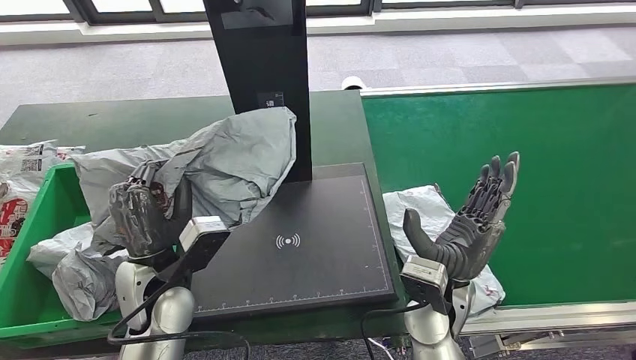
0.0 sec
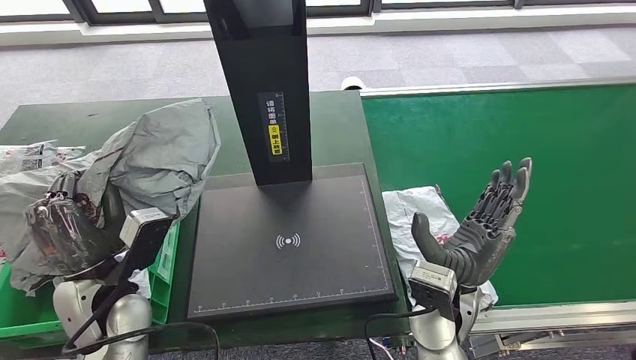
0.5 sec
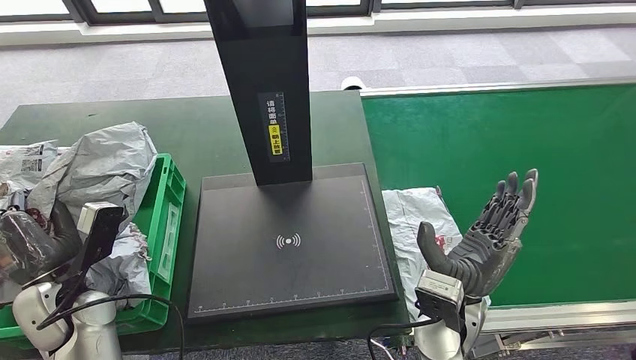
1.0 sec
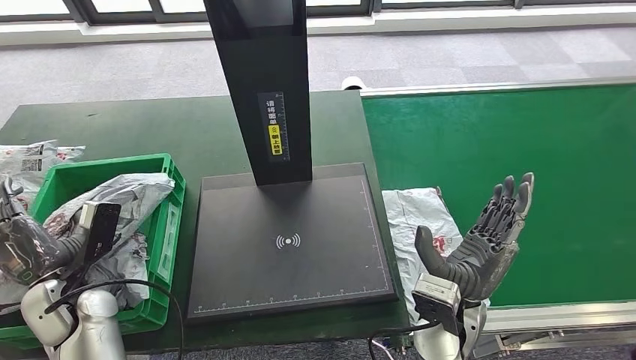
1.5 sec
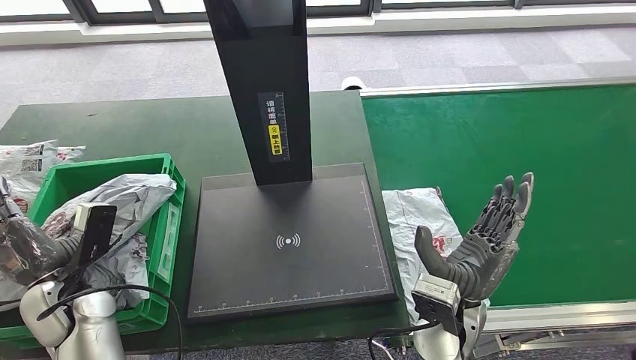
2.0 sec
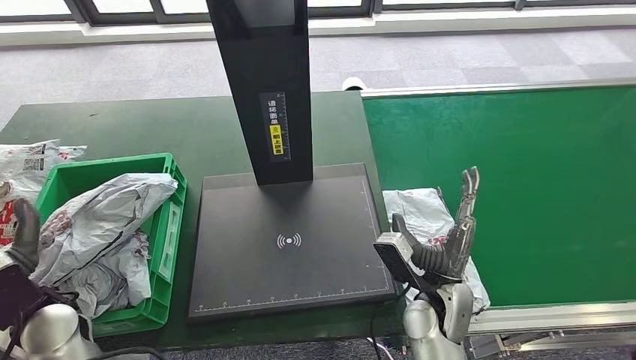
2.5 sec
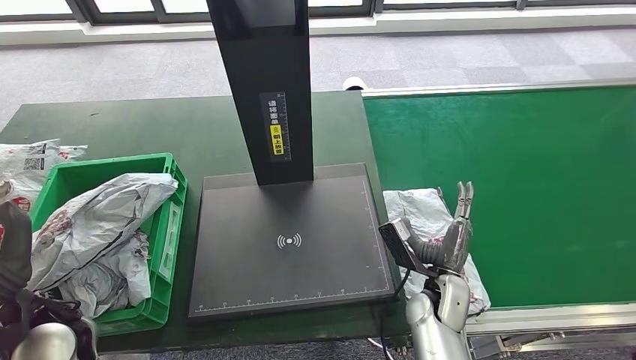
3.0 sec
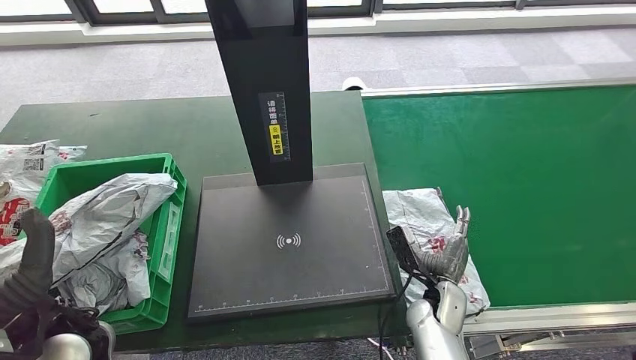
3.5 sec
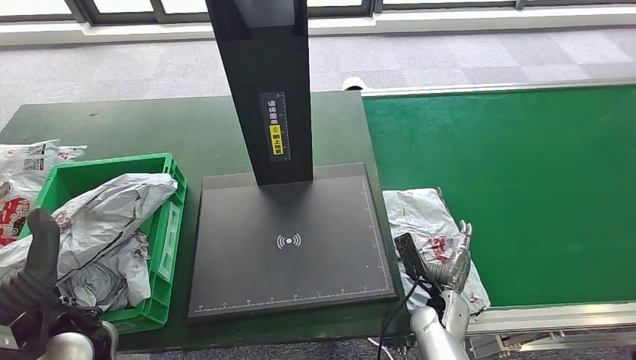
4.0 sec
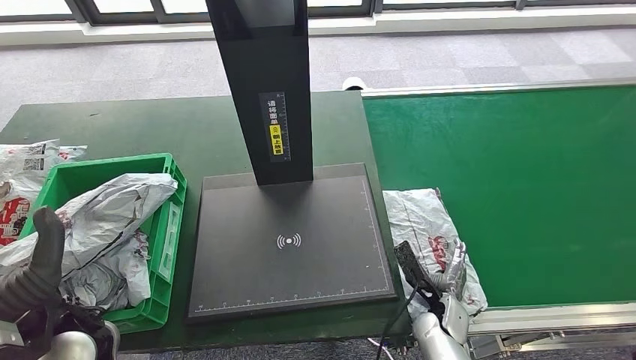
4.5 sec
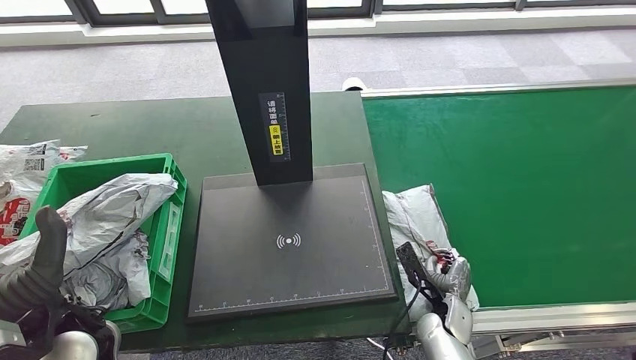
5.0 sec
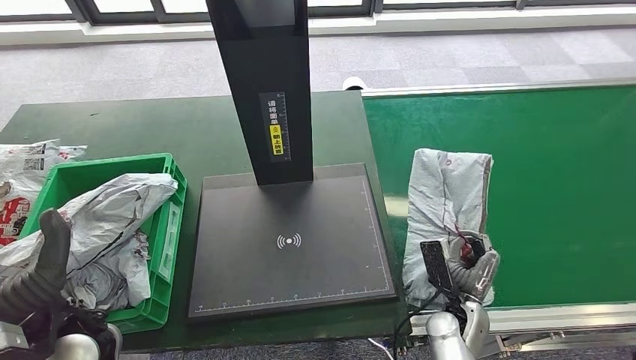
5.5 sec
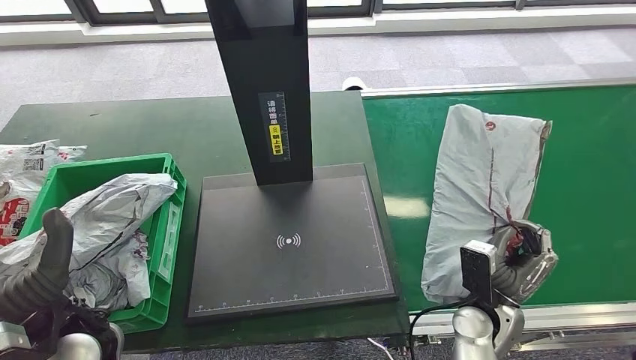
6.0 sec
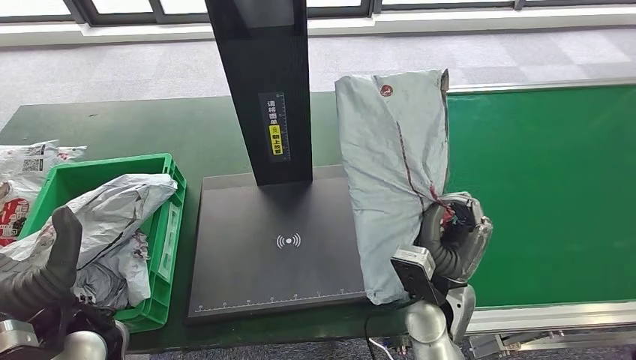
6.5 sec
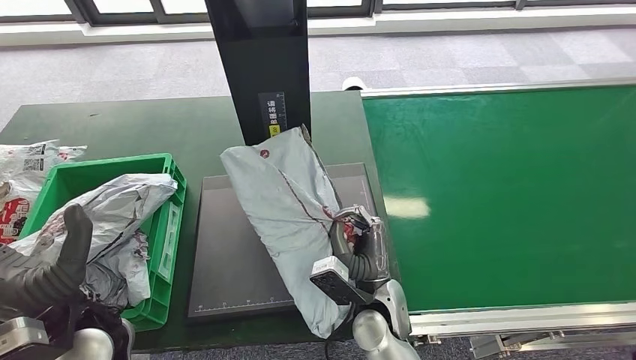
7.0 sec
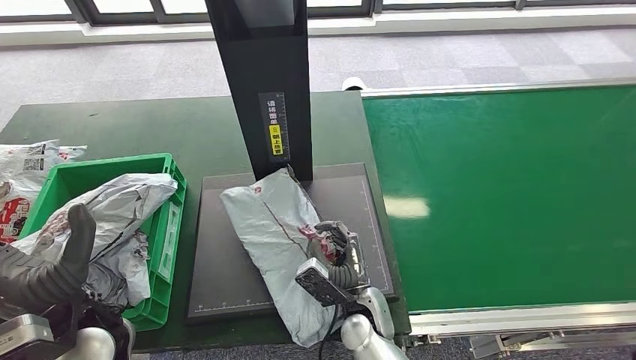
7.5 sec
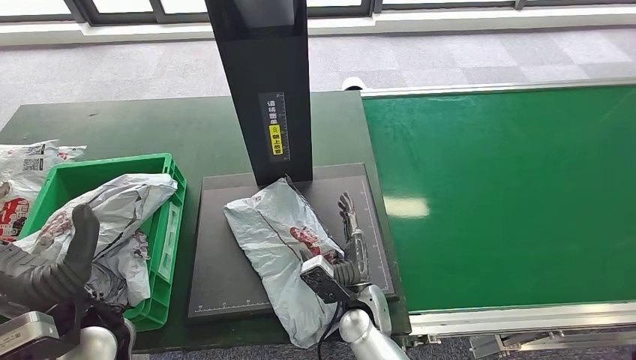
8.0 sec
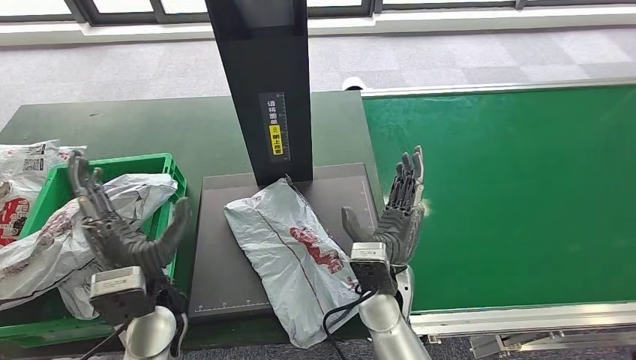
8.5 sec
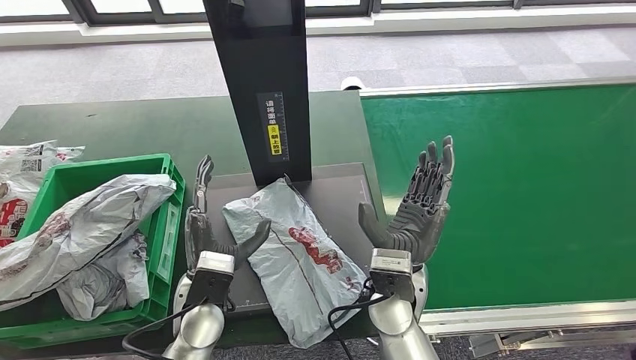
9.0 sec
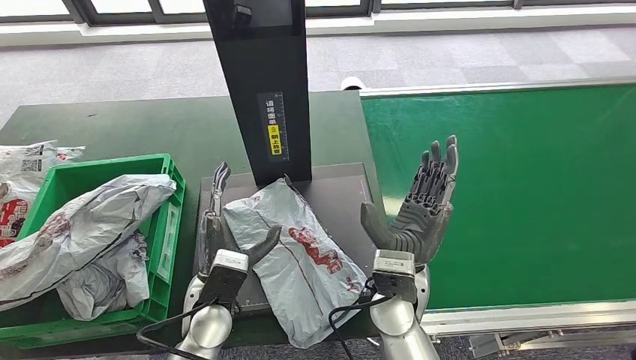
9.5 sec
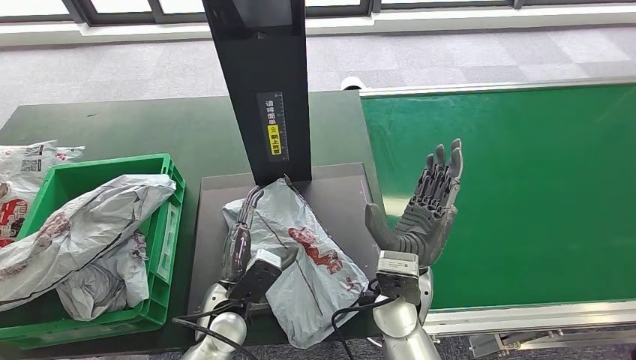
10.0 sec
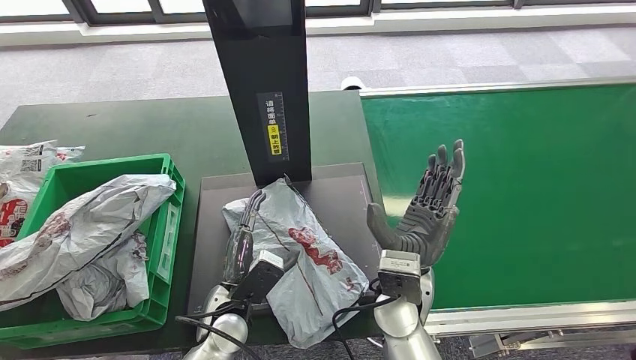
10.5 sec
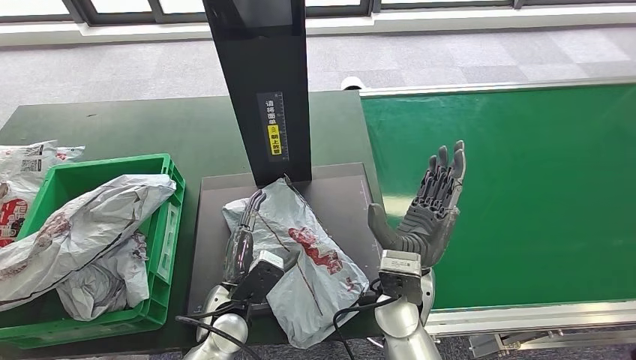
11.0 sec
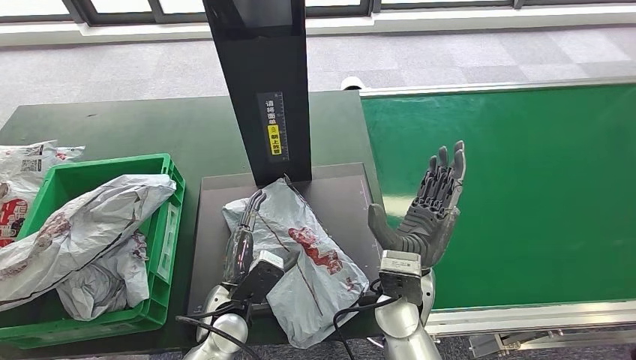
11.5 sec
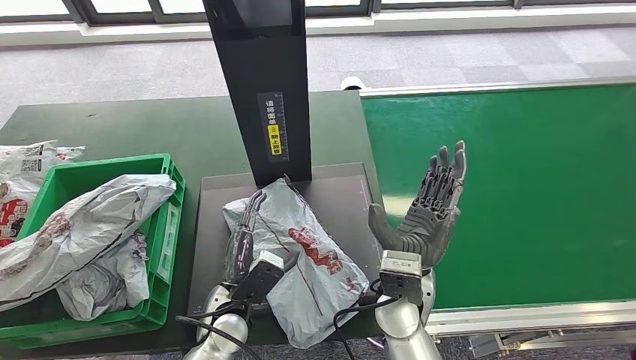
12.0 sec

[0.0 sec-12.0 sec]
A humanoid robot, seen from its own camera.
Step, 0.5 sec to 3.0 sec: Place the parcel into the delivery box.
Step, 3.5 sec to 6.0 sec: Pick up the parcel from the conveyor belt.
Step, 7.0 sec to 9.0 sec: Place the parcel onto the inbound machine.
2.0 sec to 4.0 sec: The left hand travels upward, to the right and backward by about 10 cm. Meanwhile the right hand shifts some 15 cm downward.
4.0 sec to 6.0 sec: The right hand goes roughly 10 cm upward and to the right.
8.0 sec to 10.0 sec: The right hand is displaced upward and to the right by roughly 15 cm, while the left hand goes some 20 cm to the right and downward.
10.0 sec to 12.0 sec: The two hands keep their place.

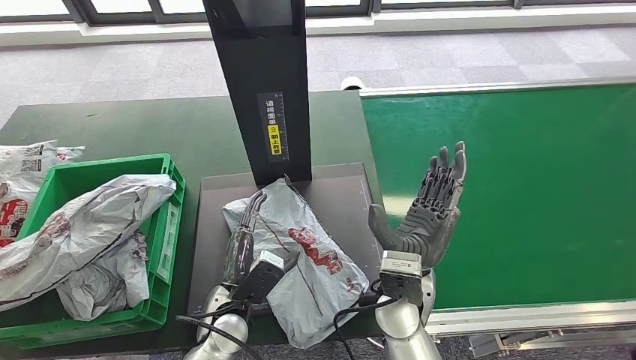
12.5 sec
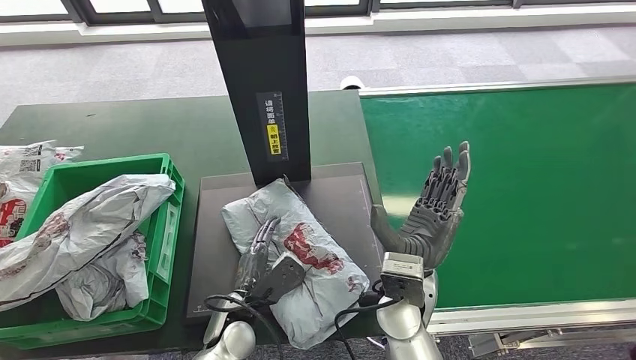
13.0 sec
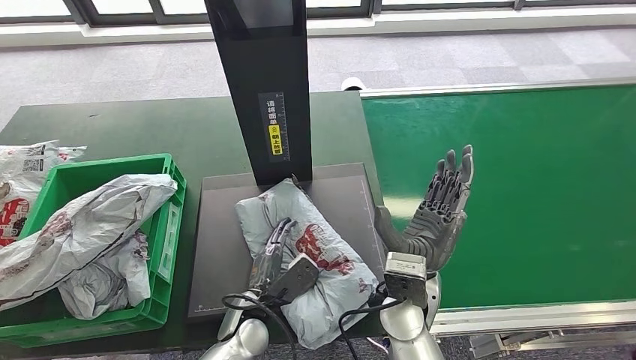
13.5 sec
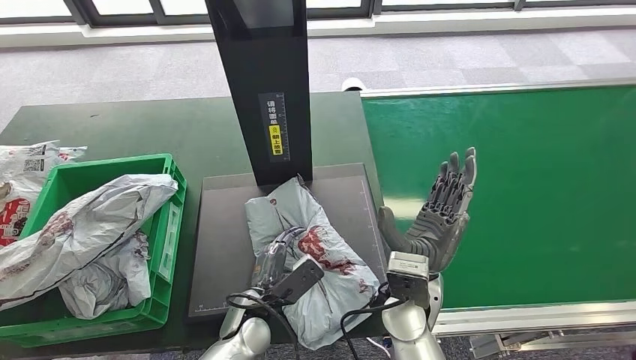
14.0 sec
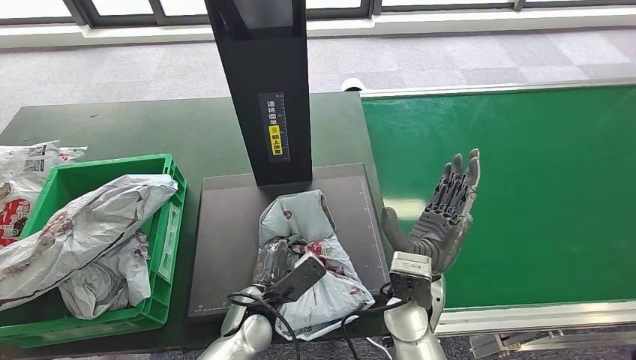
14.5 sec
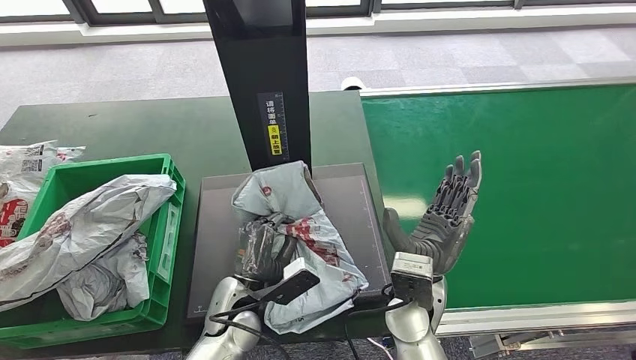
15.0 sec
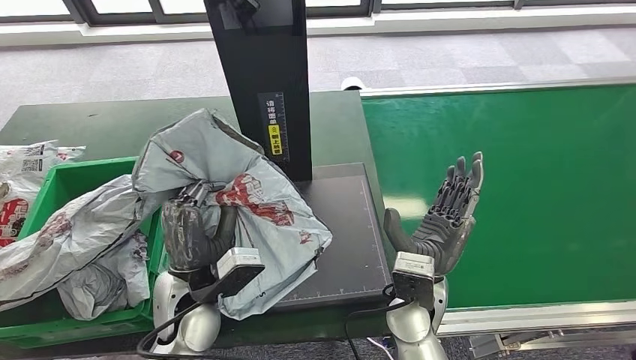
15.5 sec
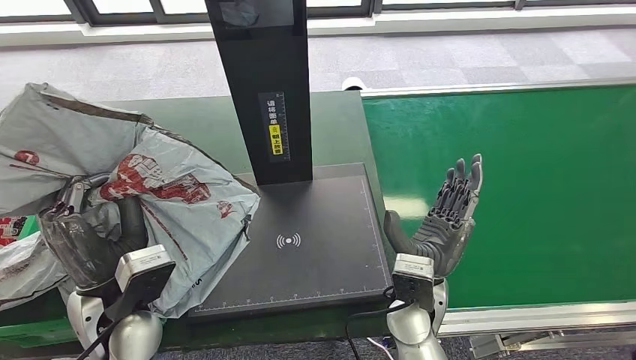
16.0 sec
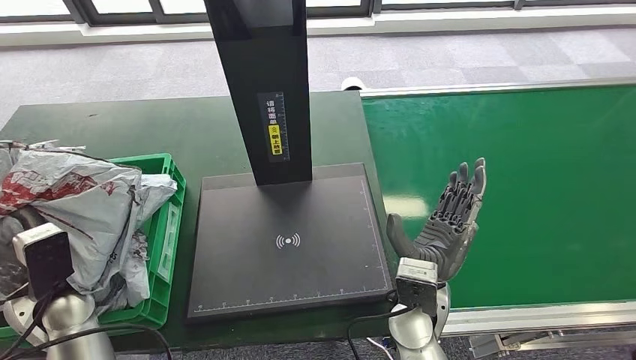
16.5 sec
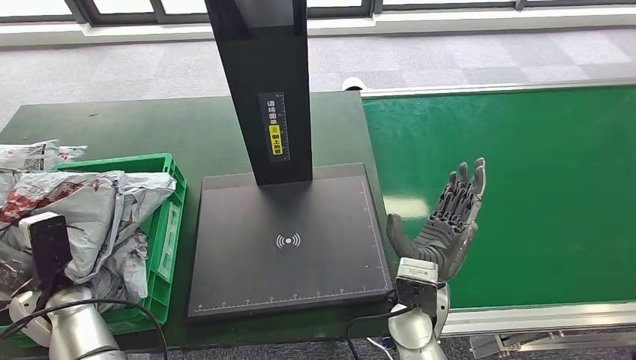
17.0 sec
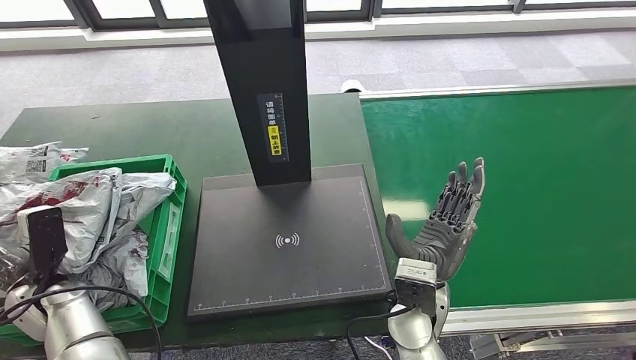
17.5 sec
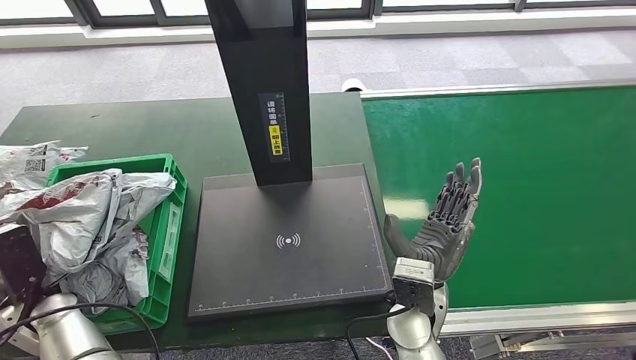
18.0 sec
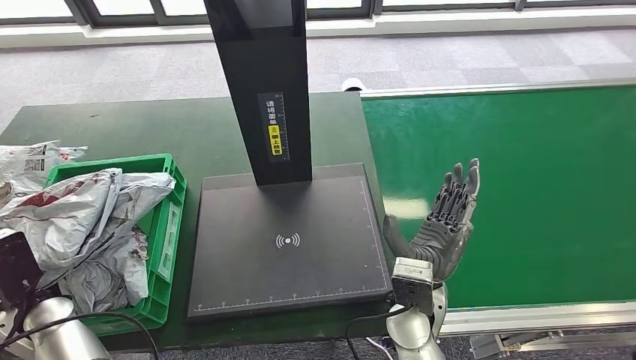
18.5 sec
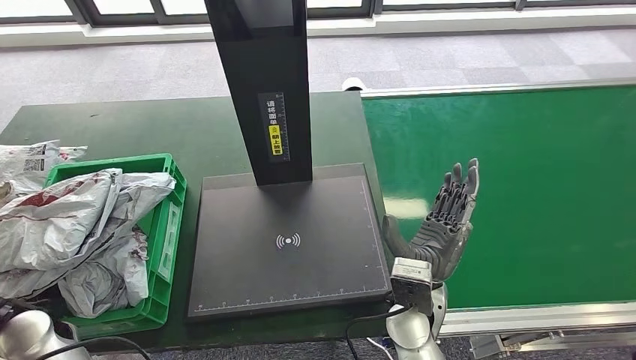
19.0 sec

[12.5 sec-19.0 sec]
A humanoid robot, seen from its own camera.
Step, 15.0 sec to 16.5 sec: Pick up the parcel from the inbound machine.
Step, 17.0 sec to 19.0 sec: Place the parcel into the delivery box.
17.0 sec to 19.0 sec: The left hand shifts roughly 5 cm upward.
